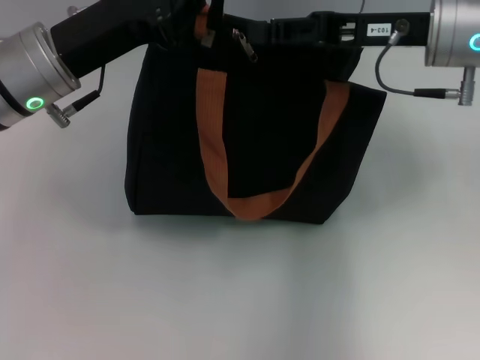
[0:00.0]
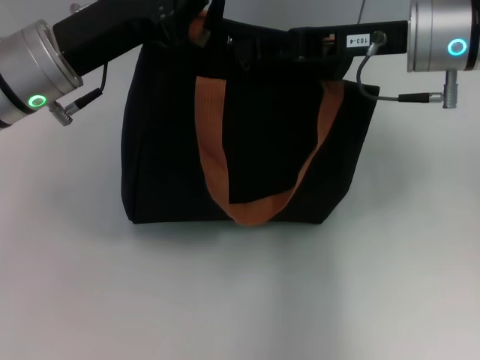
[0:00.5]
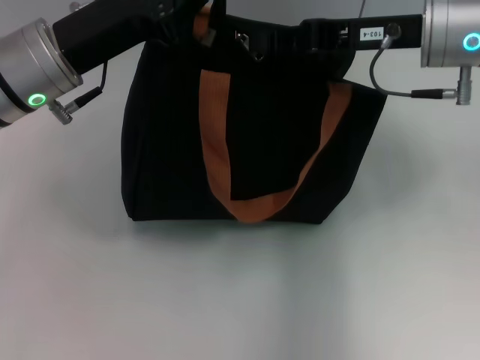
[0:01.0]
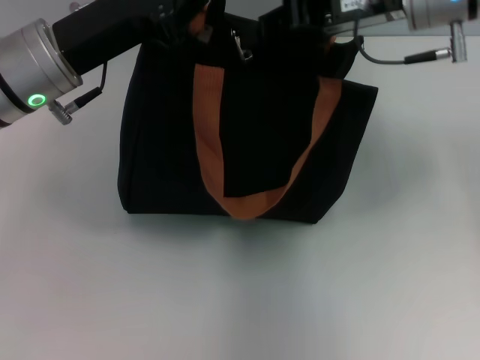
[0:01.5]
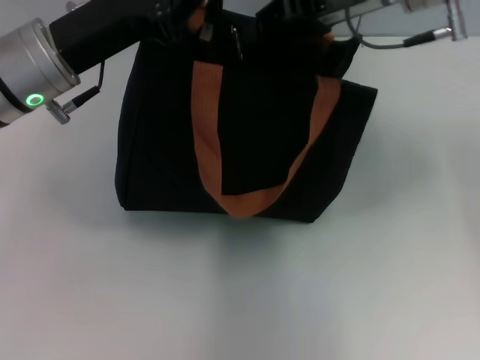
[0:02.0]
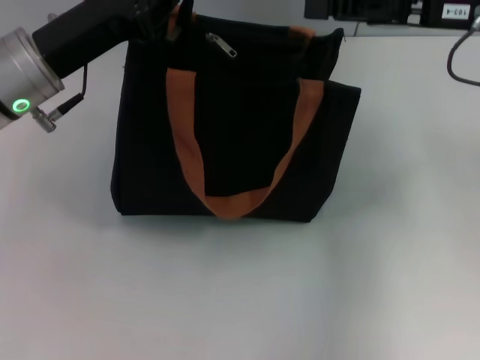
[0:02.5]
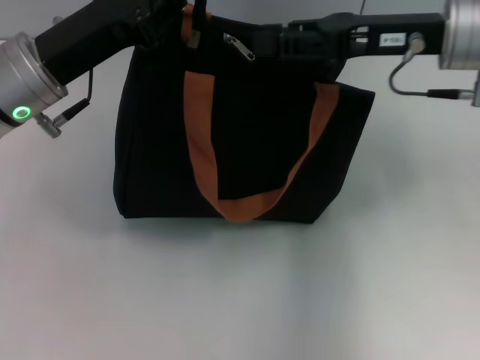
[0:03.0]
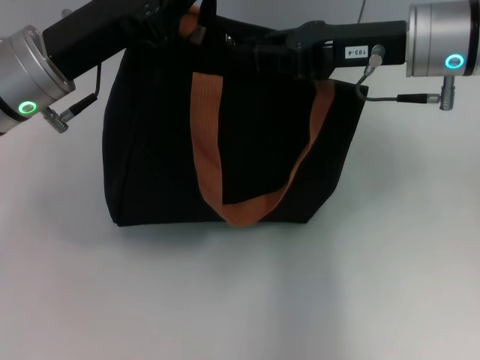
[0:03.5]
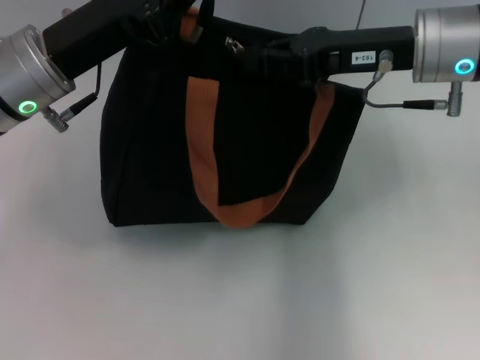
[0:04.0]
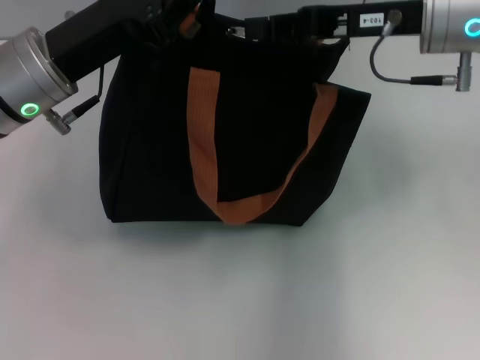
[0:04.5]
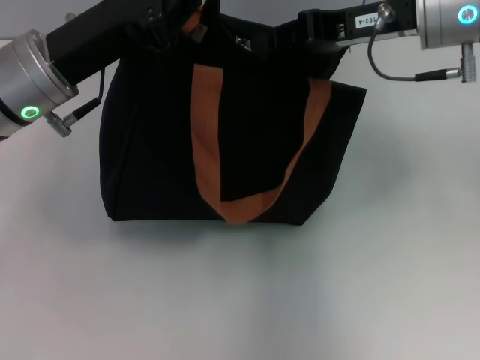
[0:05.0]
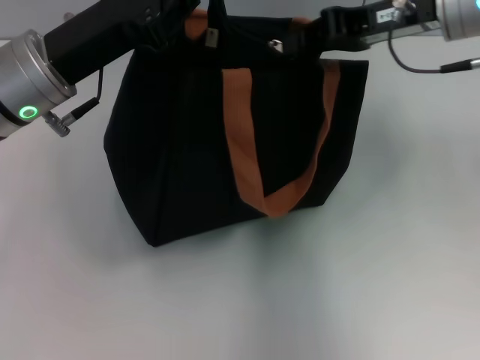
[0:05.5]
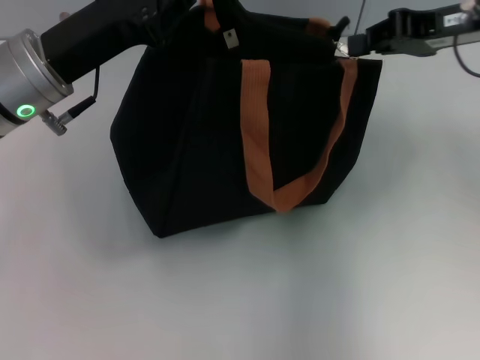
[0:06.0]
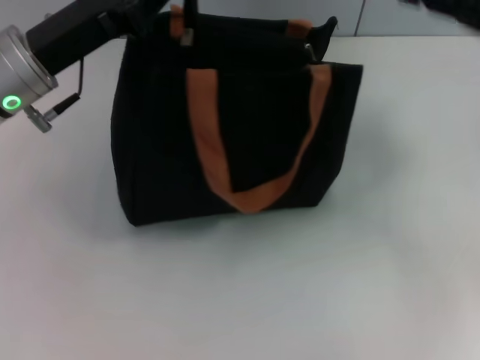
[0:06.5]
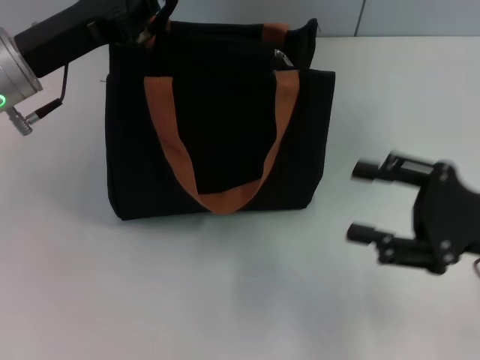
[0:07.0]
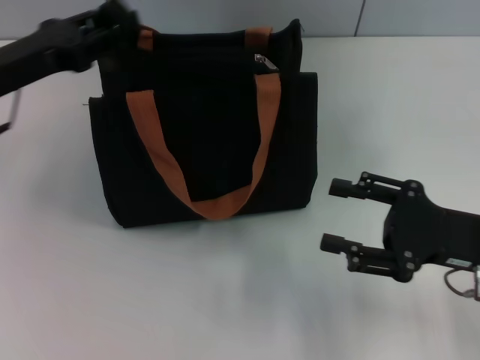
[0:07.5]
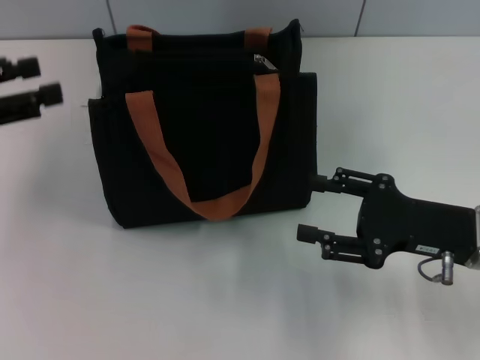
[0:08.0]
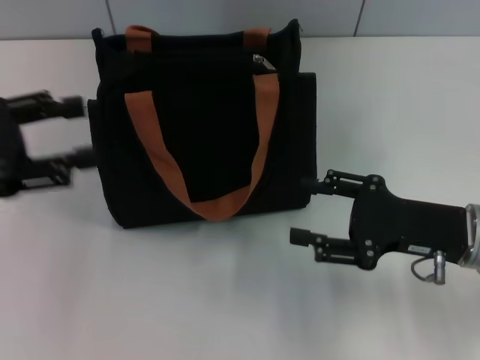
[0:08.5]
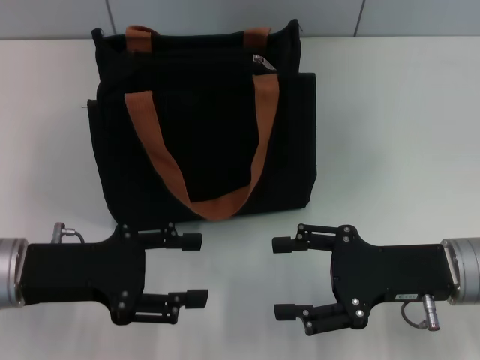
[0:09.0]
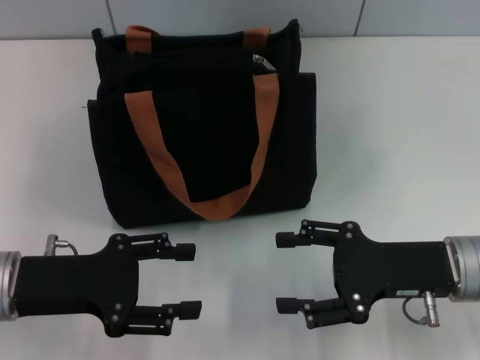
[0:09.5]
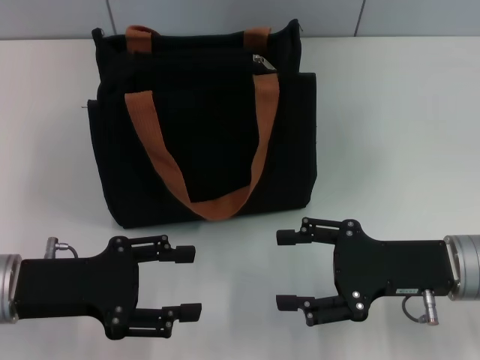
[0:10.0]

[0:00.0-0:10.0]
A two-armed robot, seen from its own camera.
Step, 0:00.0 to 0:06.0: Pull up the zipper with your right hand.
Step, 0:06.5 to 0:07.5: Grab the zipper with your left hand.
0:00.0 to 0:02.0: The right gripper moves upward, roughly 5 cm, and closes its fingers.
0:02.0 to 0:04.0: The right gripper goes roughly 5 cm downward, moves roughly 10 cm to the right and comes back, and opens, then closes once more.
0:04.0 to 0:06.0: The right gripper moves to the right, approximately 10 cm.
0:06.0 to 0:08.0: The left gripper shifts roughly 15 cm to the left, and opens up. The right gripper travels downward and backward by some 20 cm, and opens its fingers.
0:08.0 to 0:10.0: The left gripper moves to the right, downward and backward, roughly 15 cm.

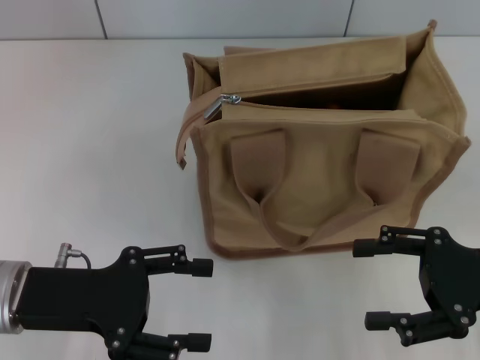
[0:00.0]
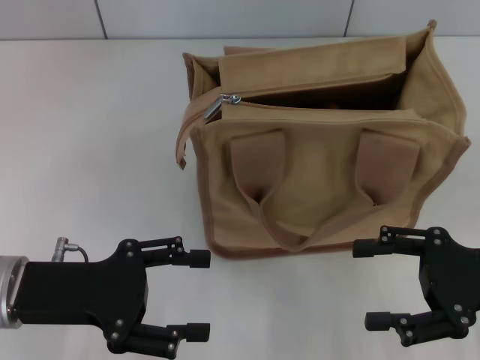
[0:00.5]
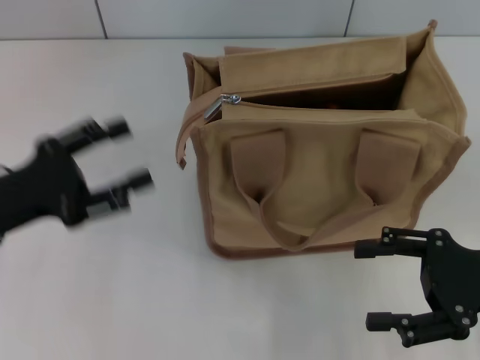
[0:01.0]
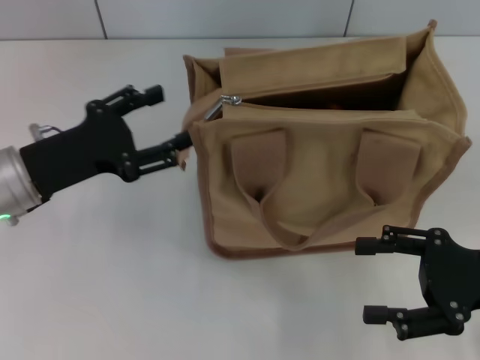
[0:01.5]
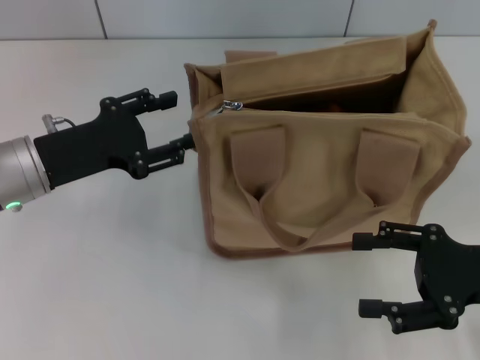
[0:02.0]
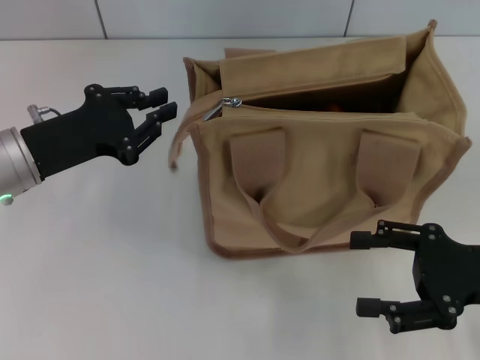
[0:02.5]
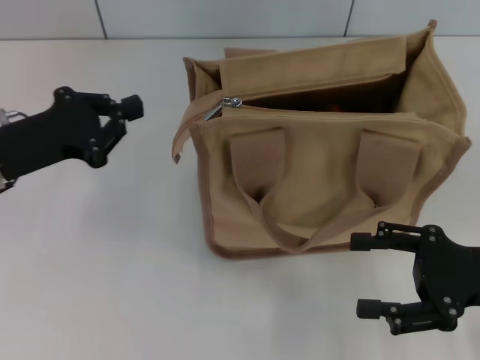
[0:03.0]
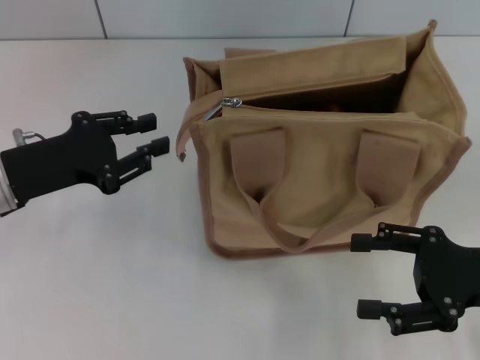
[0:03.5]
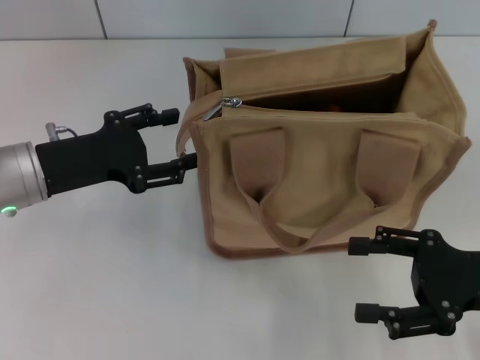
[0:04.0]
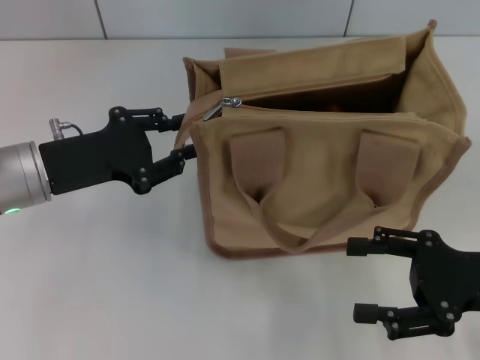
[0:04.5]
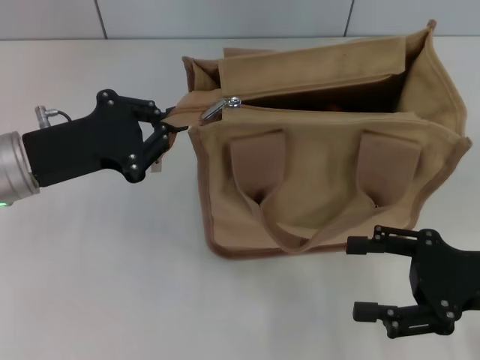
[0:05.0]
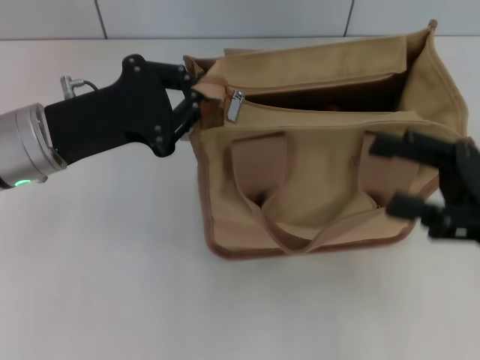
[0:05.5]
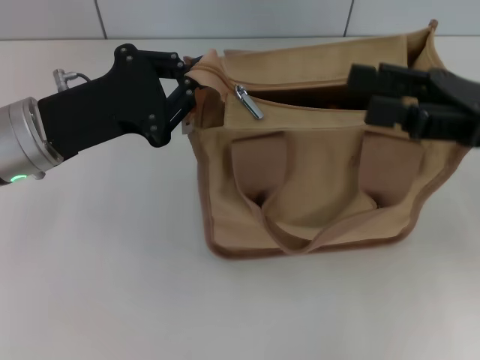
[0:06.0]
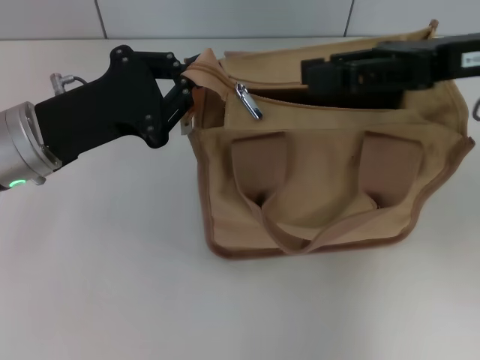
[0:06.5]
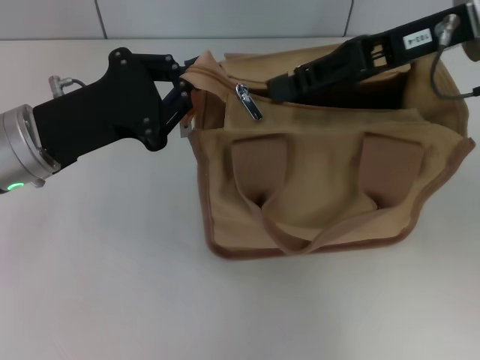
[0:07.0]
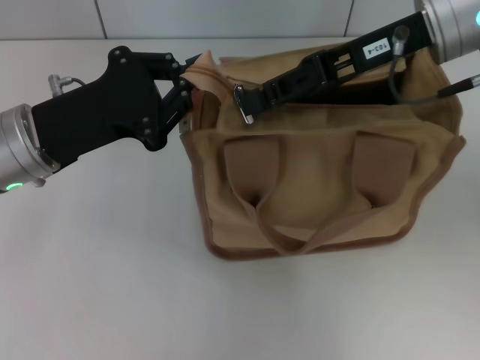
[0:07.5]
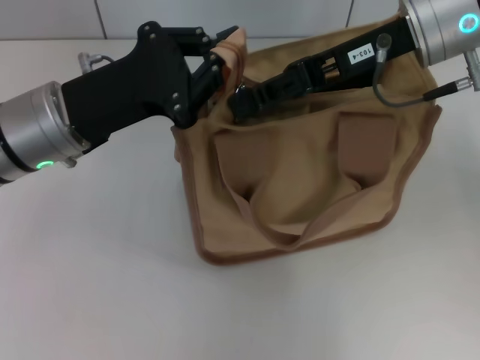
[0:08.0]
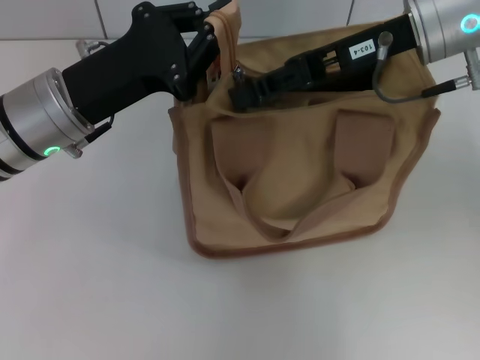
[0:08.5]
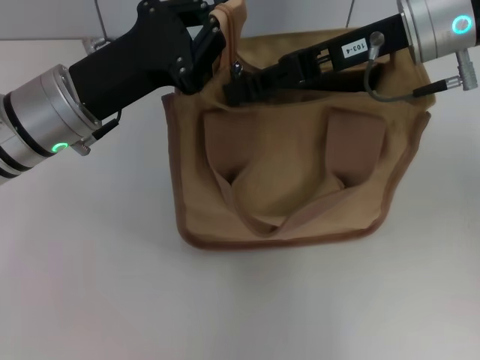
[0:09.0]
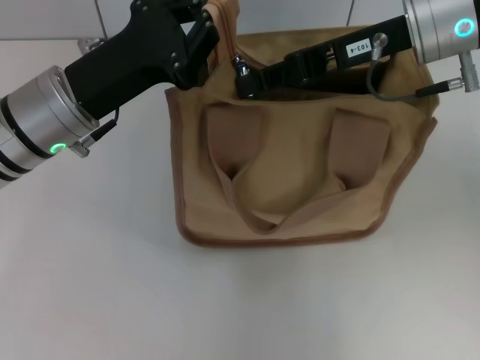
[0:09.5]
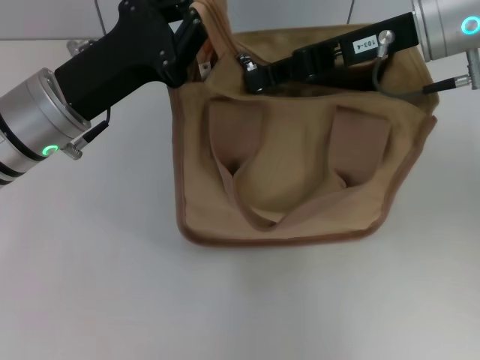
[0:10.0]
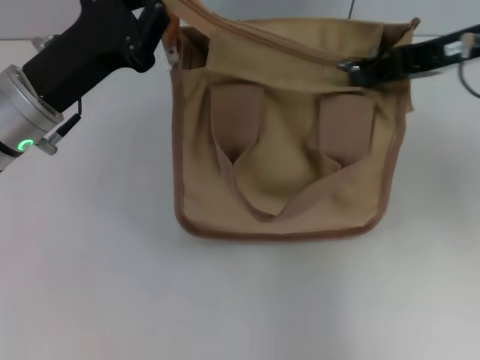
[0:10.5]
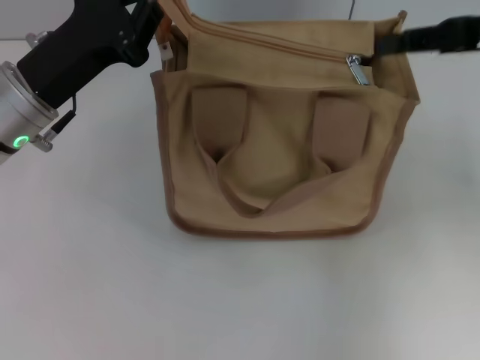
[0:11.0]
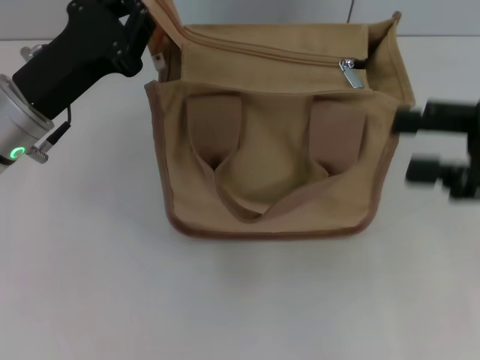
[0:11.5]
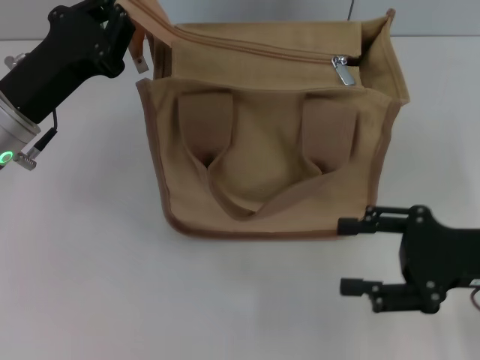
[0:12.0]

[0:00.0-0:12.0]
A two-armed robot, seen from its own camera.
Step, 0:00.0 to 0:10.5: Pull up the zipper with your right hand.
0:00.0 to 0:02.0: The left gripper heads forward, covering roughly 10 cm.
0:02.0 to 0:04.0: The left gripper closes and opens again.
0:04.0 to 0:06.0: The right gripper goes about 10 cm upward and forward. Meanwhile the left gripper closes.
0:06.0 to 0:08.0: The right gripper shifts some 15 cm to the left, forward and upward, and closes up.
0:08.0 to 0:10.0: The right gripper closes its fingers.
0:10.0 to 0:12.0: The right gripper shifts approximately 25 cm backward, downward and to the right, and opens up.

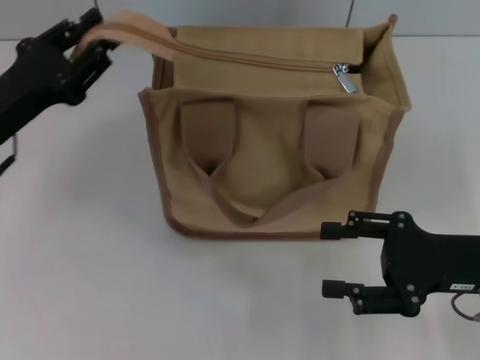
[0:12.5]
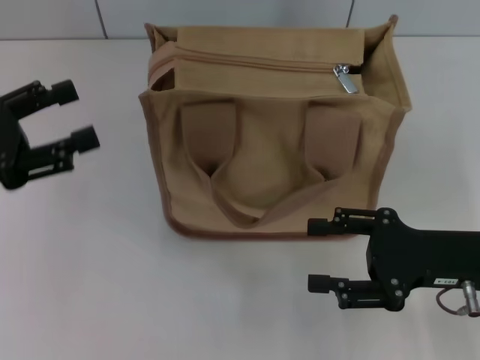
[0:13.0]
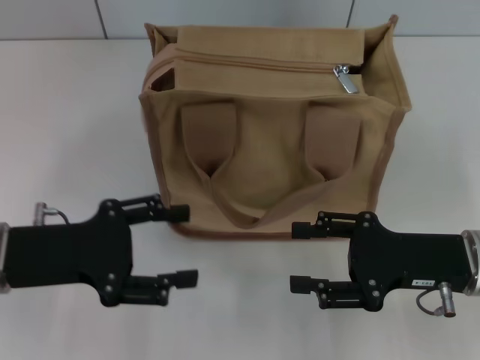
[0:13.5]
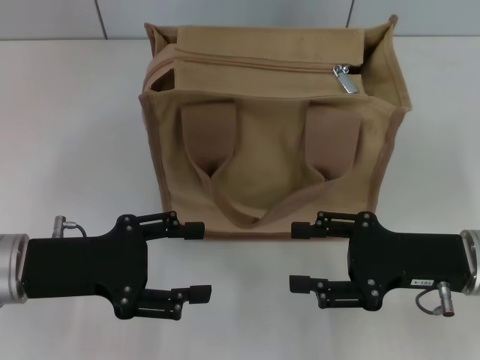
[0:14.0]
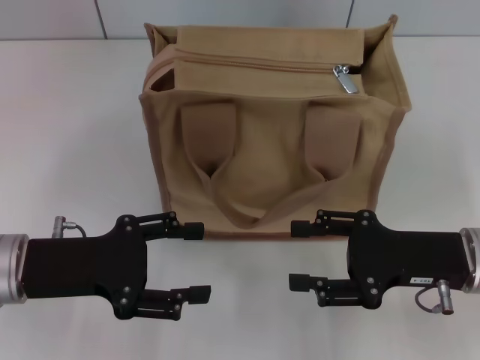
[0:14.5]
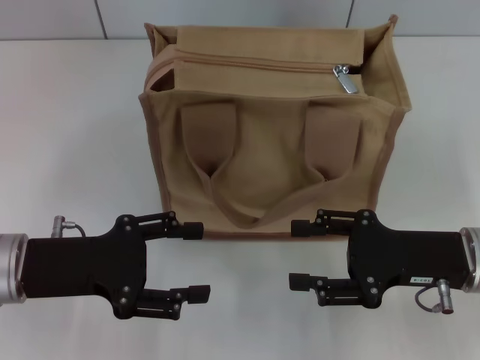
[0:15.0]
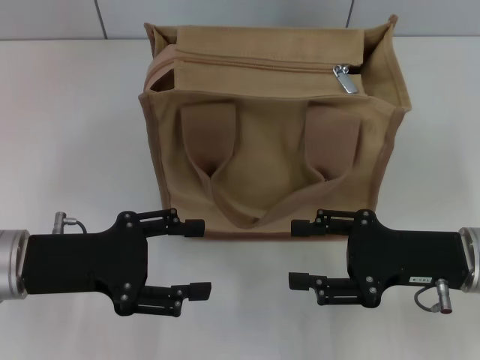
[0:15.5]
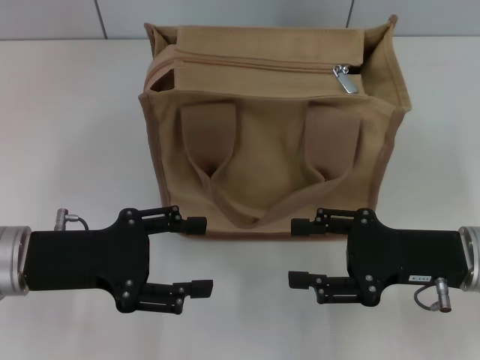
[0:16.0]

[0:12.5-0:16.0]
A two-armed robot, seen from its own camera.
0:12.5 to 0:14.5: The left gripper goes roughly 5 cm backward, reaches about 5 cm to the left, then returns, and opens.
0:14.5 to 0:16.0: The two grippers keep their place.
